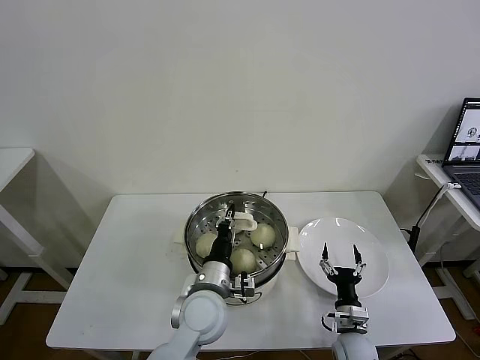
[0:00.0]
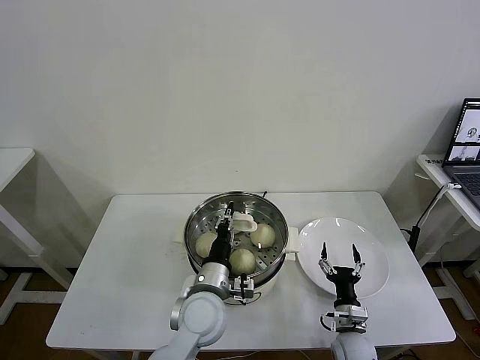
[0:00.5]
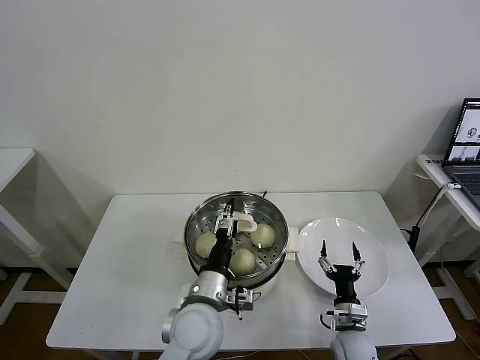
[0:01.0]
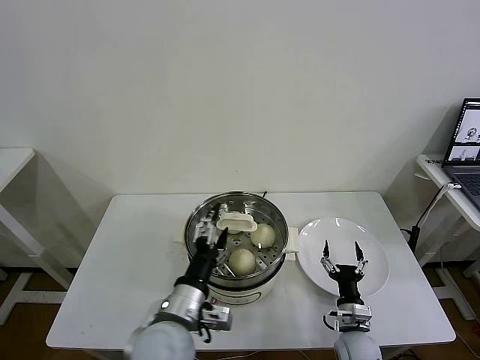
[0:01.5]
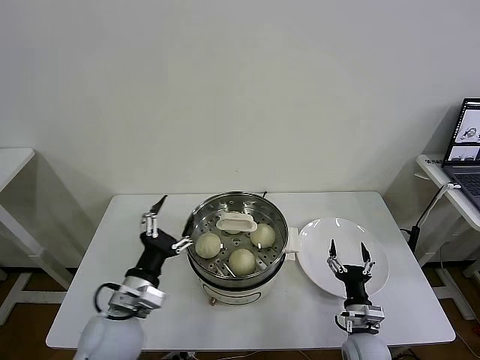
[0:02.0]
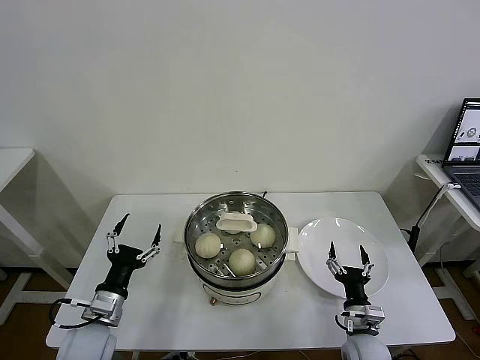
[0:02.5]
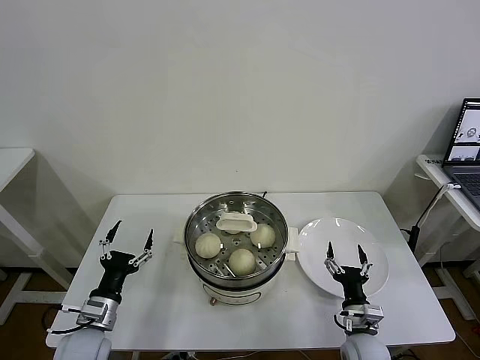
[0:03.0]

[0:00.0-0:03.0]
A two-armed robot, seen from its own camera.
Task of the whole recording: take steamed baozi put them in steamer then cover it.
0:00.0 to 0:01.5: The left gripper shifts about 5 cm backward, and opens its fingers.
0:01.5 to 0:03.0: The left gripper goes about 25 cm to the left and downward.

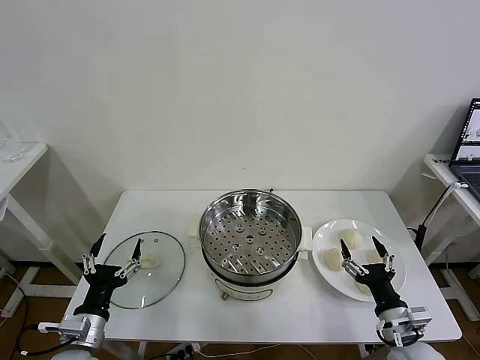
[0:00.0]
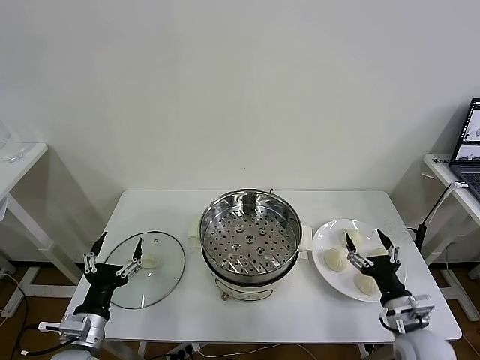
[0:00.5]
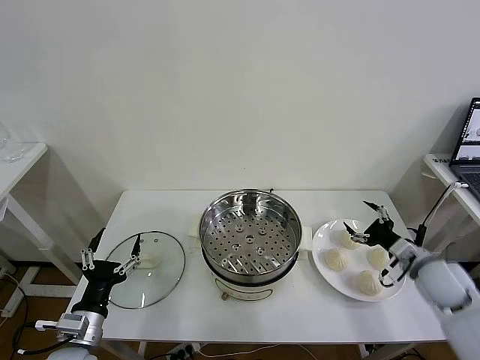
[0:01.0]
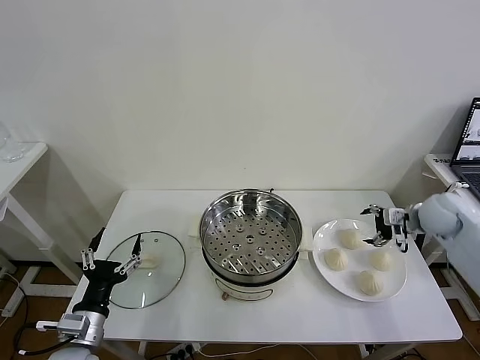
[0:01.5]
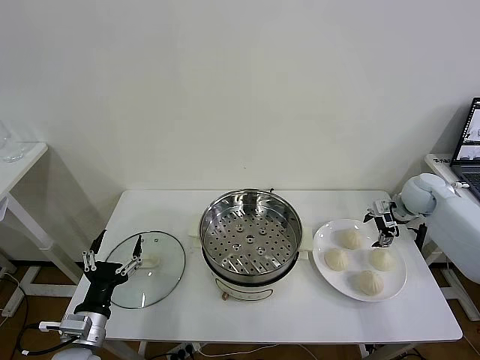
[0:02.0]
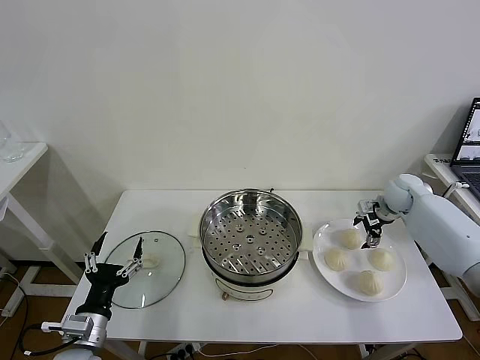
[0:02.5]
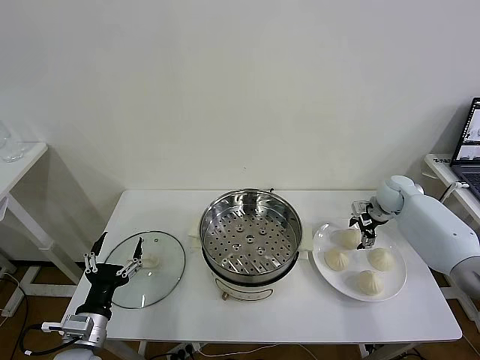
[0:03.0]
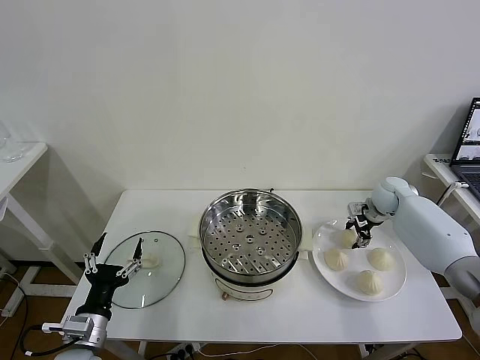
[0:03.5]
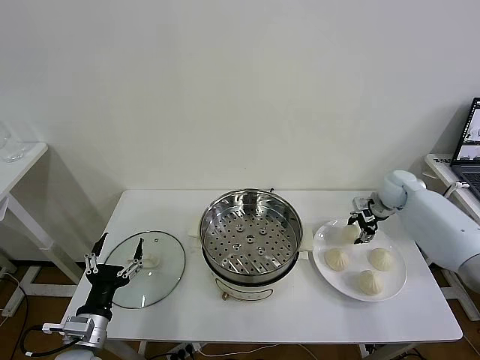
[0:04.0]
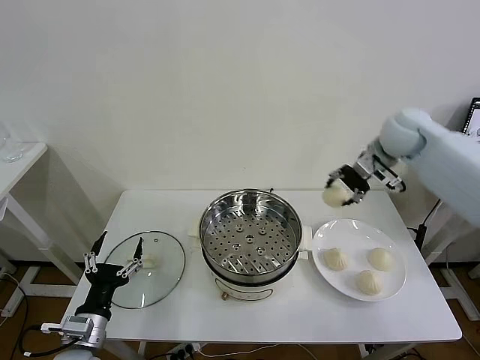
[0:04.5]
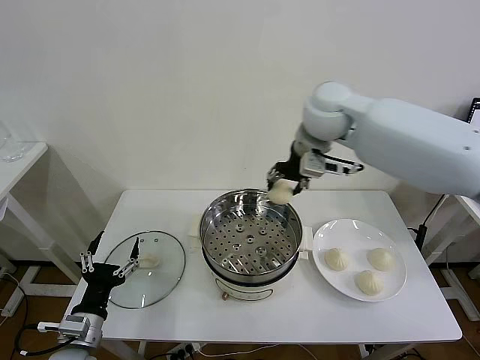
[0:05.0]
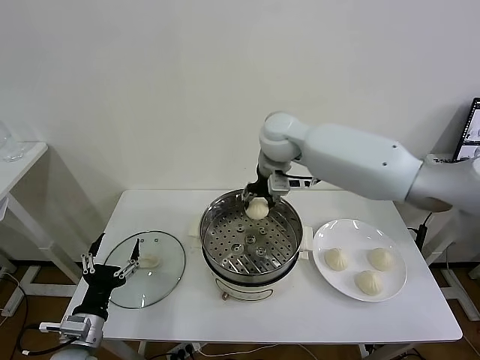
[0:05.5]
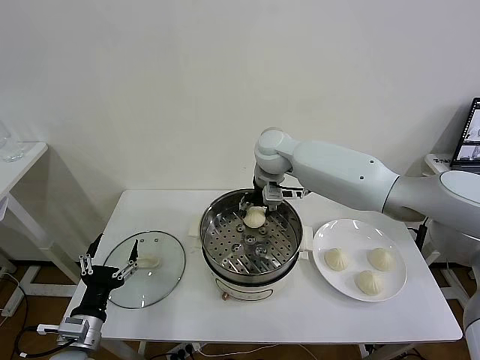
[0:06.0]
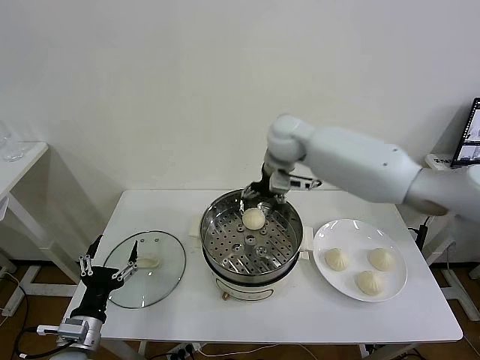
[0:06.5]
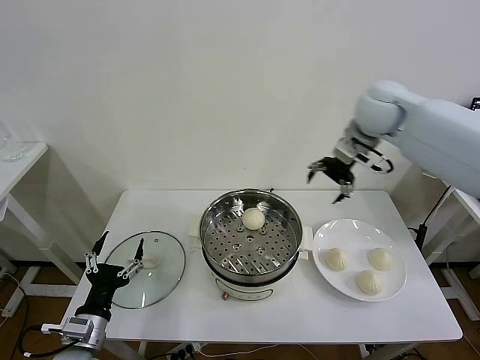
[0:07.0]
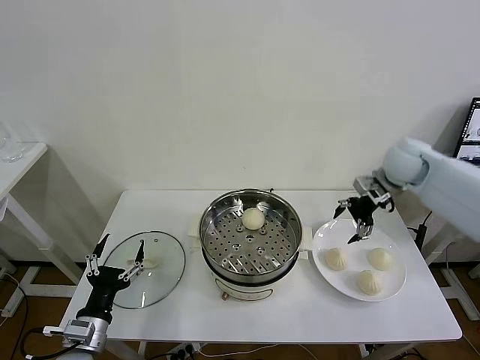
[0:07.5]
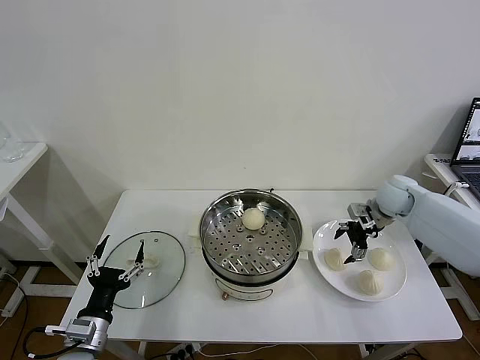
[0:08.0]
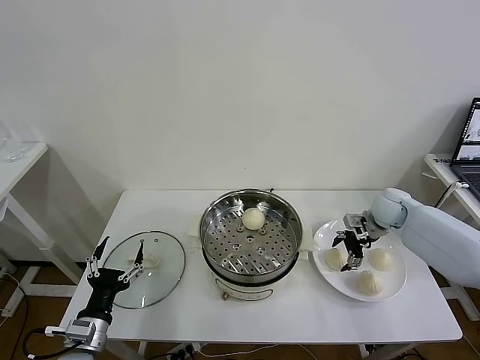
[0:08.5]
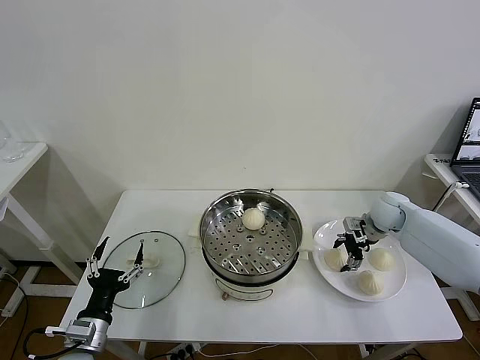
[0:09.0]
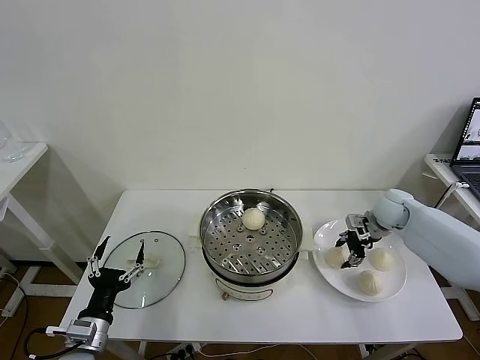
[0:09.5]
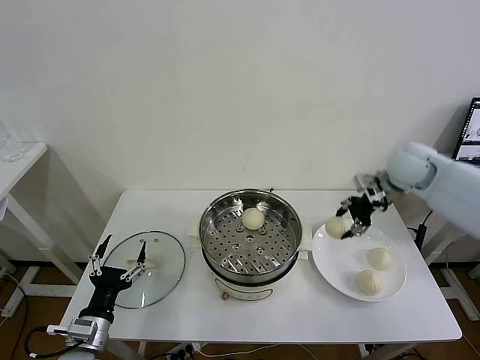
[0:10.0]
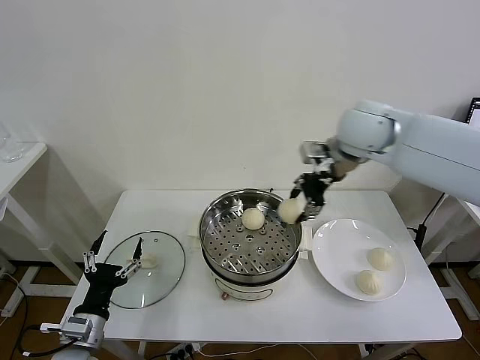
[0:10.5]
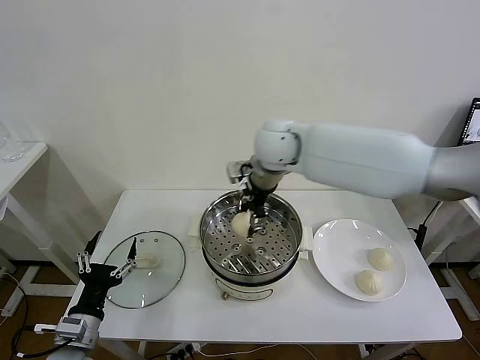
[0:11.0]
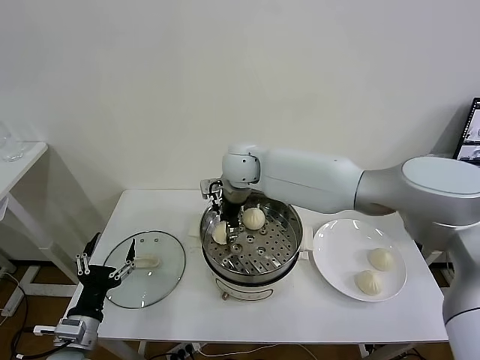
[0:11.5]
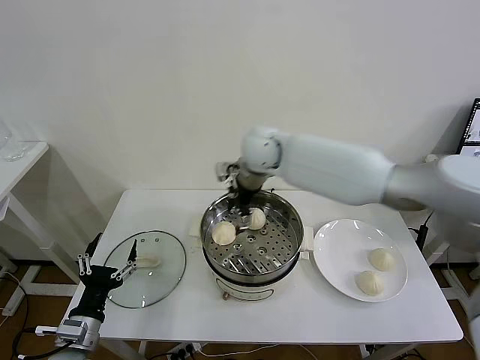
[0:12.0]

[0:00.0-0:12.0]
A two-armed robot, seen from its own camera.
Task of the whole recording: take steamed baozi put them in steamer then cover it.
Step, 0:00.0 to 0:03.0: Grasp the baozi in the plate with right gripper.
Step, 0:03.5 to 0:06.0: Place the baozi on the steamer with right gripper.
Step, 0:06.5 to 0:09.0: Grasp the baozi in the plate with right gripper.
Step, 0:09.5 to 0:11.5: Place the baozi on the steamer with right gripper.
0:02.0 to 0:04.0: The right gripper closes up.
0:04.0 to 0:06.0: The right gripper moves to the left, some 35 cm, and opens up.
0:06.0 to 0:08.0: The right gripper heads to the right, covering some 30 cm.
0:08.0 to 0:10.0: The right gripper goes roughly 15 cm upward, and closes.
0:10.0 to 0:12.0: The right gripper is displaced to the left by roughly 30 cm, and opens.

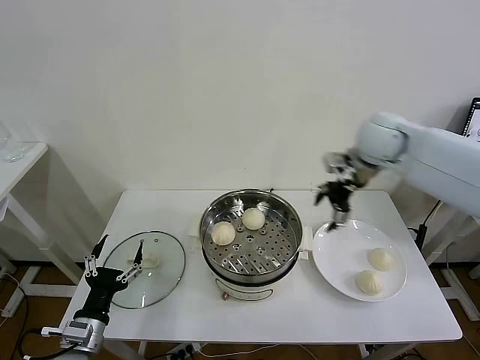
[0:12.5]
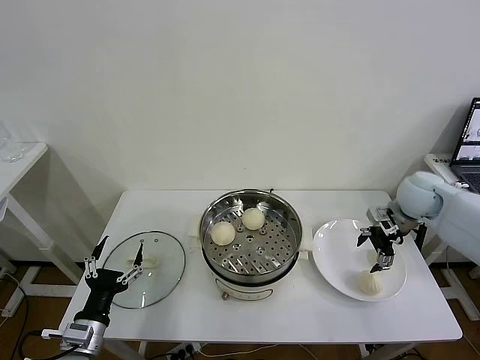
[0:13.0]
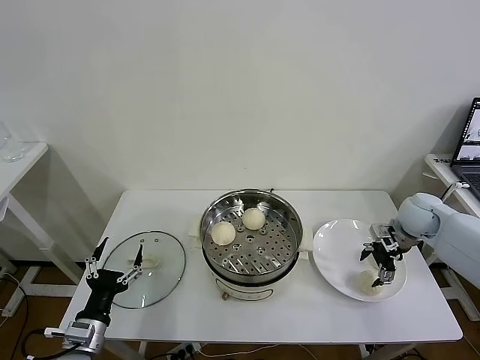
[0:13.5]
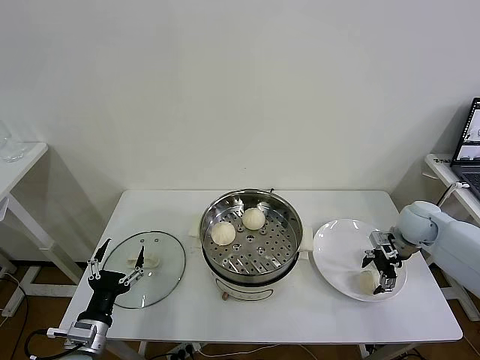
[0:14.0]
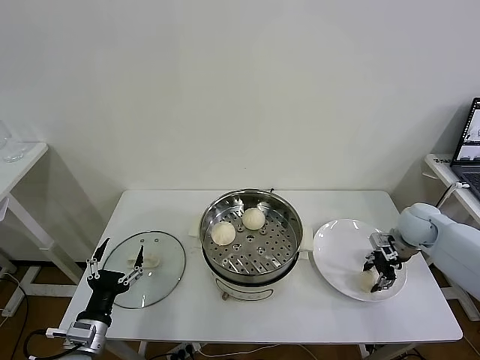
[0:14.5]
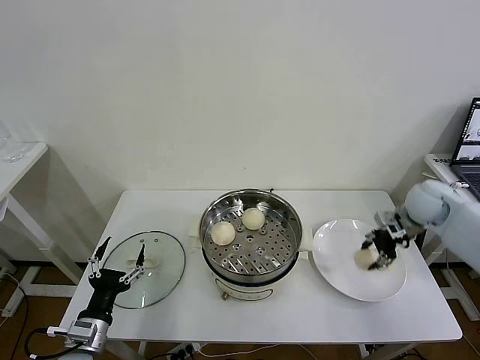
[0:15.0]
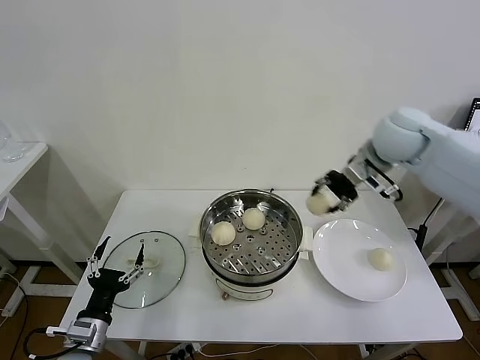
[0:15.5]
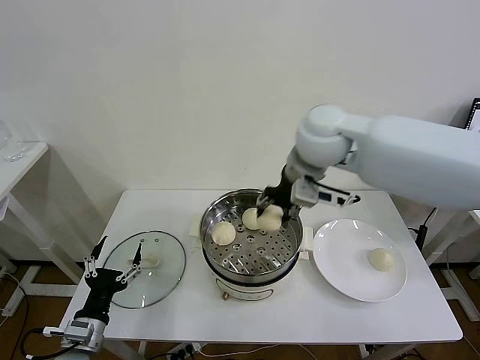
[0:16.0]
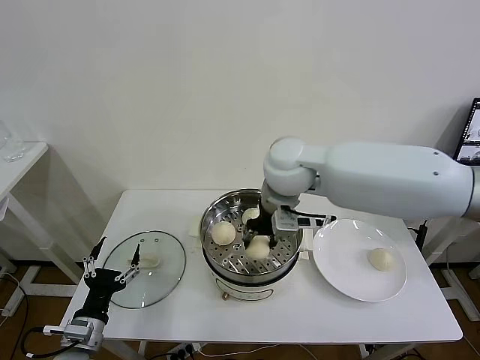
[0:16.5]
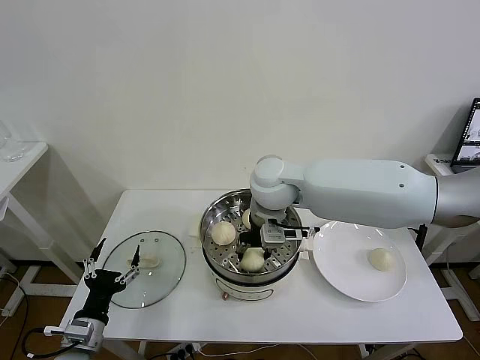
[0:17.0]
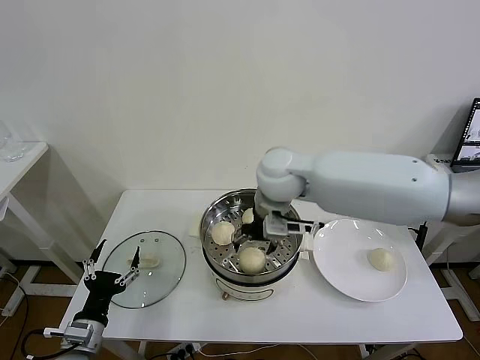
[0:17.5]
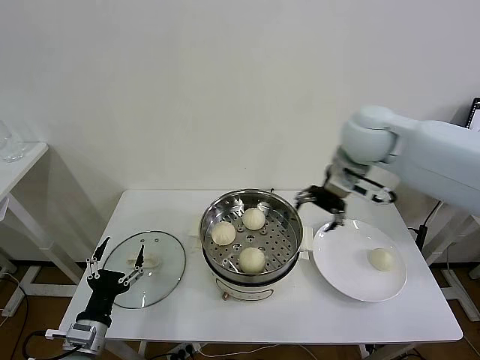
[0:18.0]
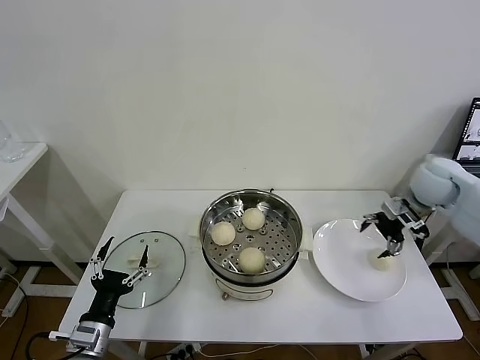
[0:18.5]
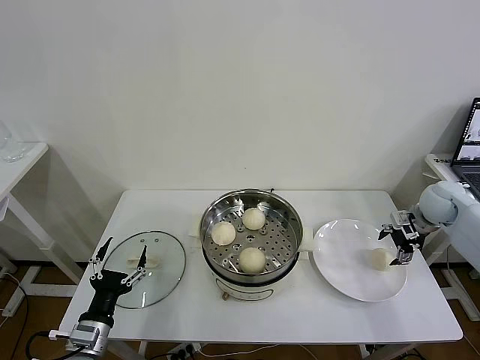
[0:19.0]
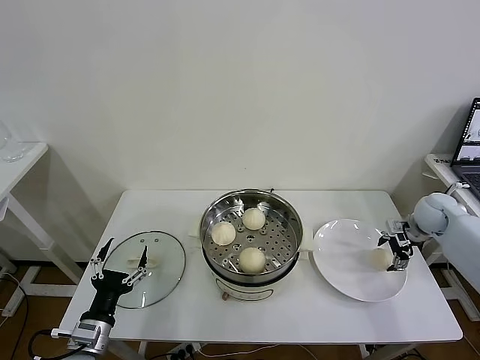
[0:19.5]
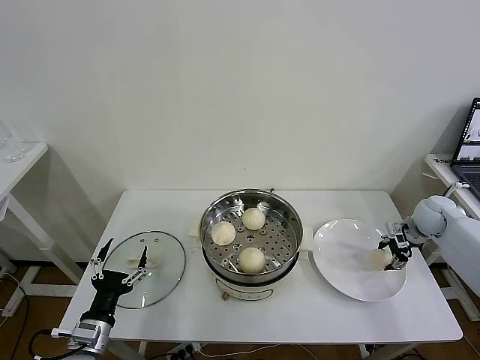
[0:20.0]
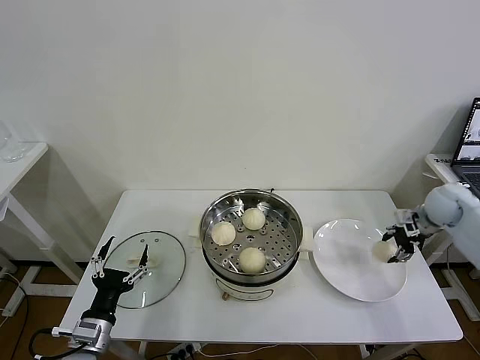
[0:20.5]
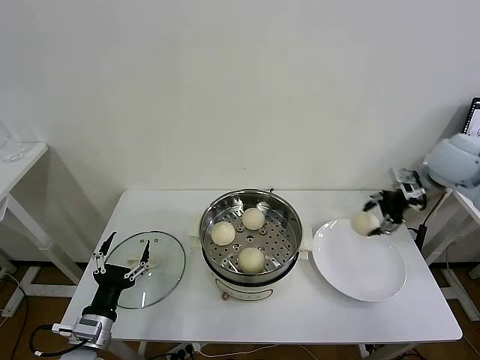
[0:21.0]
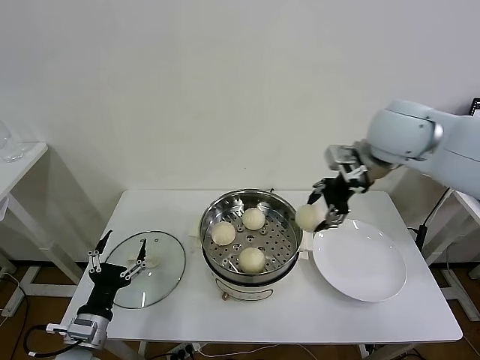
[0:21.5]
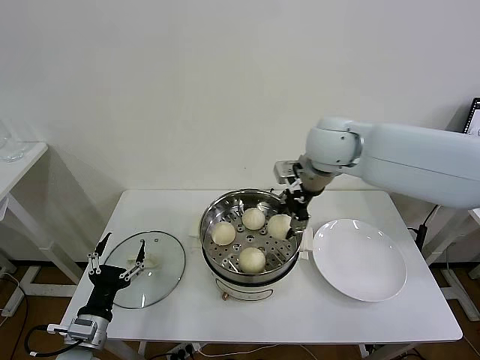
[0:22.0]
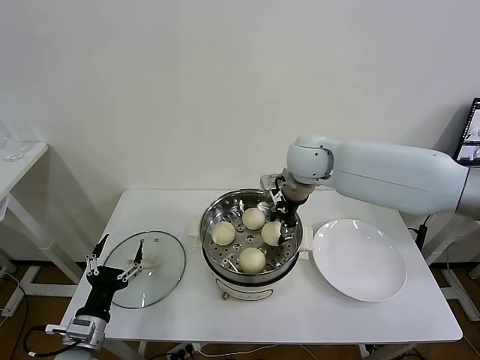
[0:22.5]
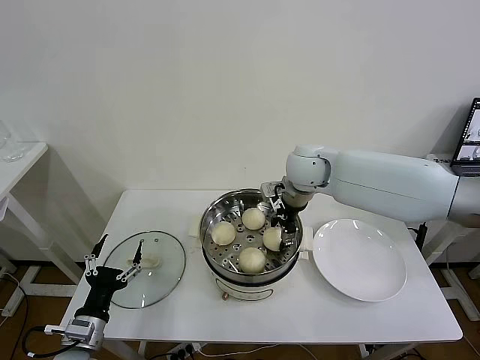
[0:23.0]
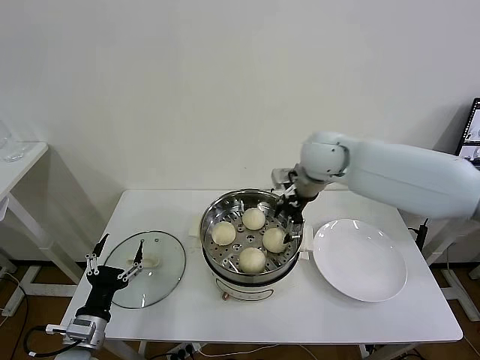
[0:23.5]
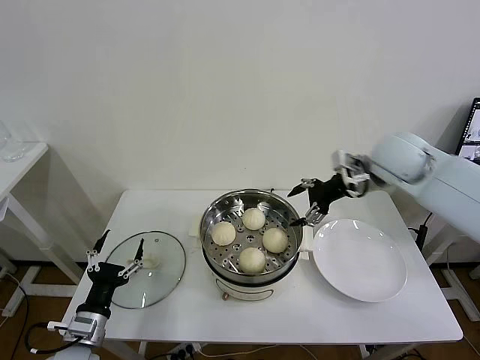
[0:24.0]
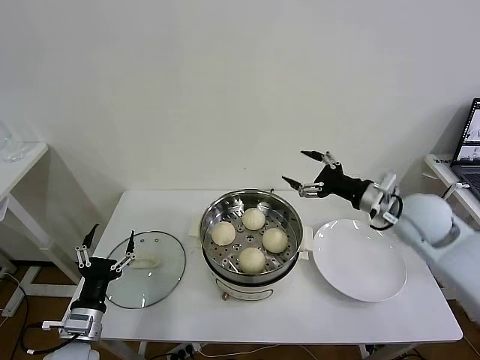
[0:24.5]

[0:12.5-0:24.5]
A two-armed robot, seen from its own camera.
Task of the whole recording: take steamed baozi put them in steamer then cover it.
Step, 0:12.5 to 0:14.5: Grasp the baozi in the plate with right gripper.
Step, 0:15.0 to 0:17.0: Place the baozi on the steamer with right gripper.
Step, 0:17.5 to 0:20.0: Grasp the baozi in the plate with right gripper.
Step, 0:20.5 to 0:23.0: Place the baozi on the steamer with right gripper.
0:12.5 to 0:14.5: The right gripper heads downward and to the right, covering about 25 cm, and closes up.
0:14.5 to 0:16.5: The right gripper heads to the left and upward, covering about 40 cm.
0:16.5 to 0:18.5: The right gripper goes approximately 35 cm to the right, and opens its fingers.
0:18.5 to 0:20.5: The right gripper goes about 10 cm to the right and downward, and closes.
0:20.5 to 0:22.5: The right gripper heads to the left, covering roughly 35 cm.
0:22.5 to 0:24.5: The right gripper heads to the right and backward, covering about 25 cm, and opens up.
